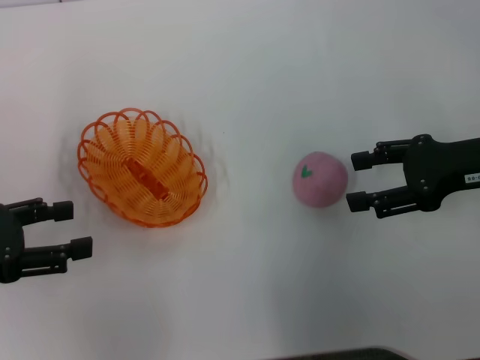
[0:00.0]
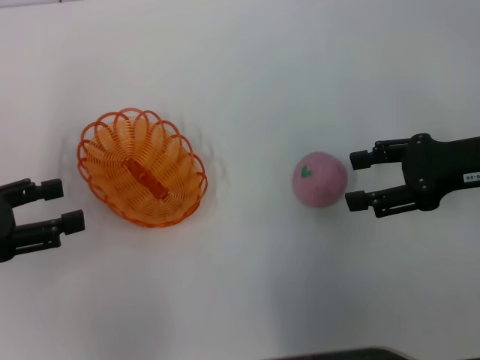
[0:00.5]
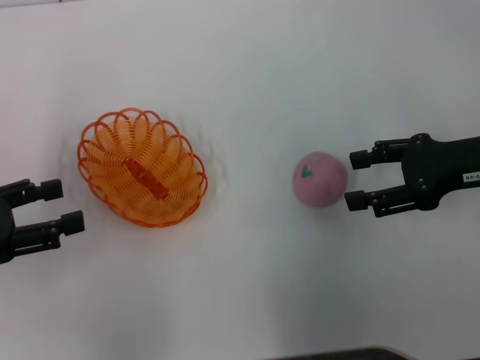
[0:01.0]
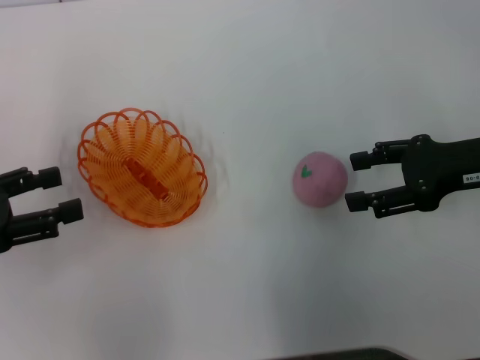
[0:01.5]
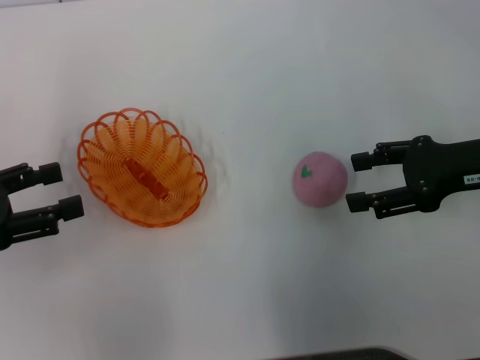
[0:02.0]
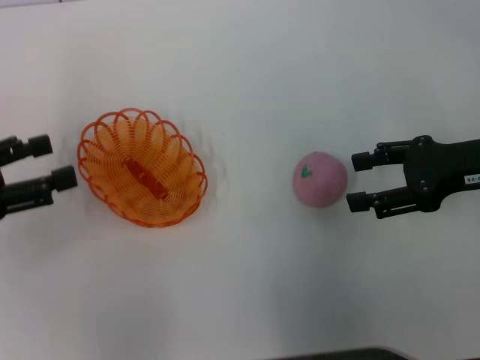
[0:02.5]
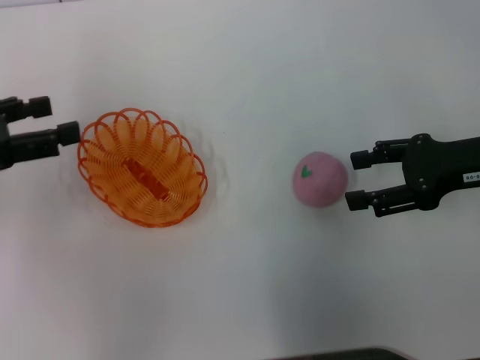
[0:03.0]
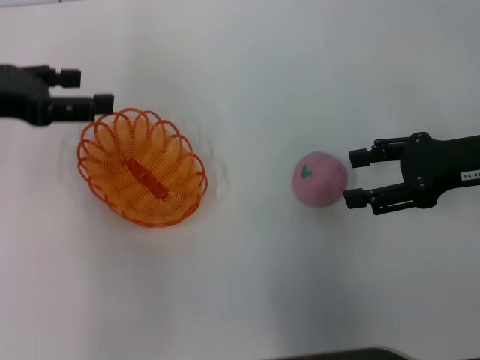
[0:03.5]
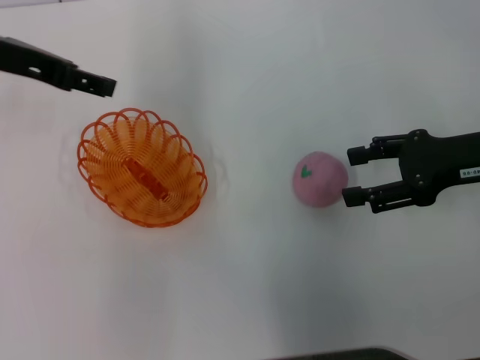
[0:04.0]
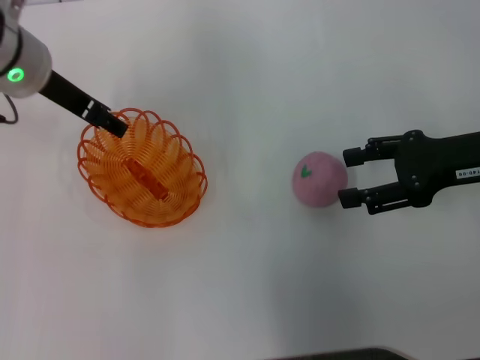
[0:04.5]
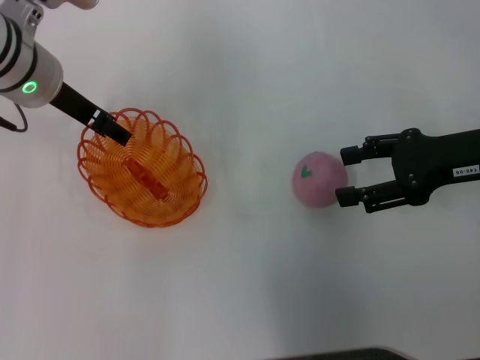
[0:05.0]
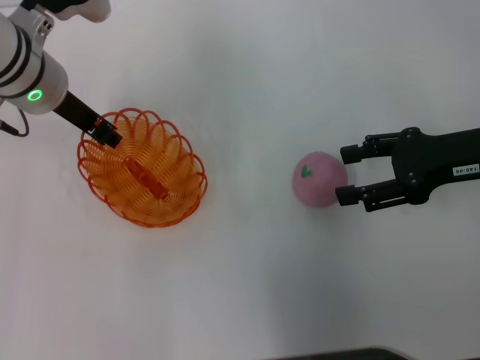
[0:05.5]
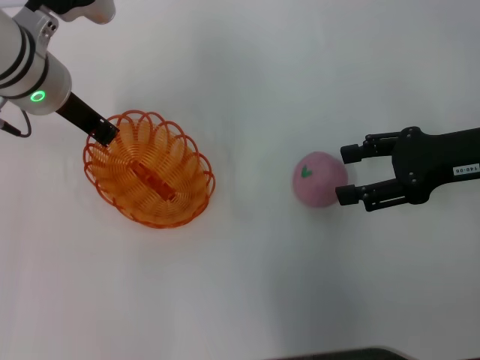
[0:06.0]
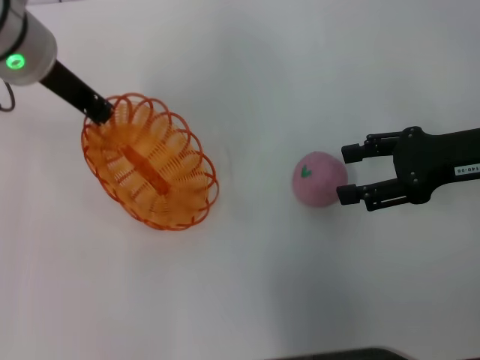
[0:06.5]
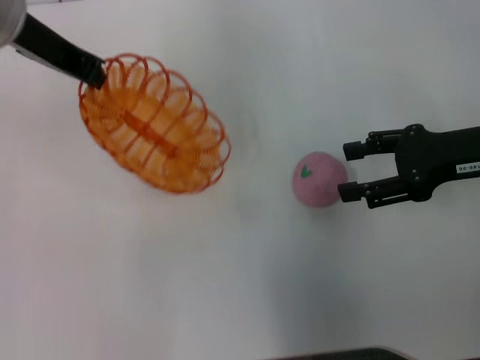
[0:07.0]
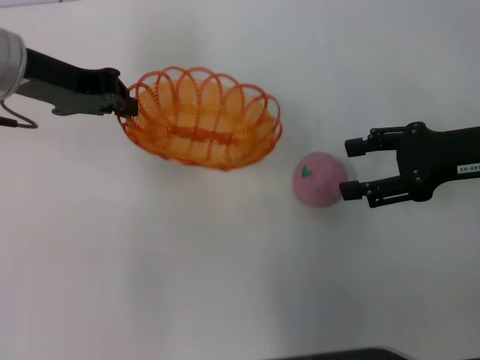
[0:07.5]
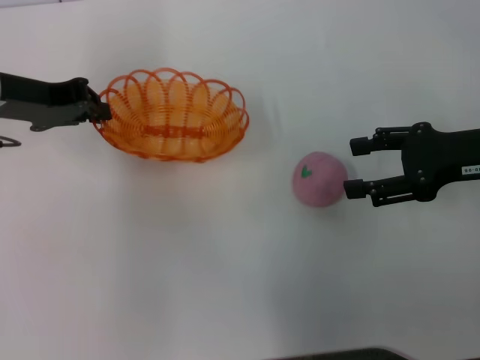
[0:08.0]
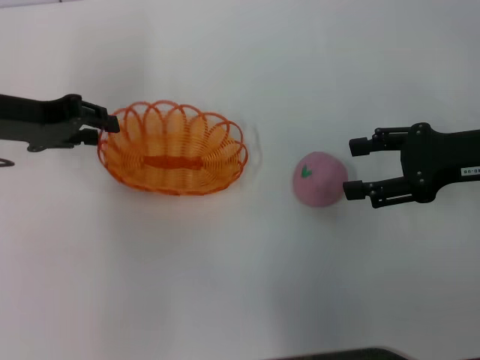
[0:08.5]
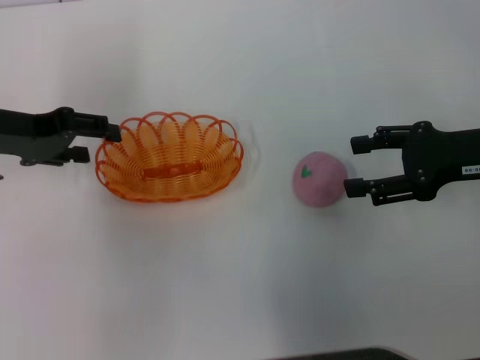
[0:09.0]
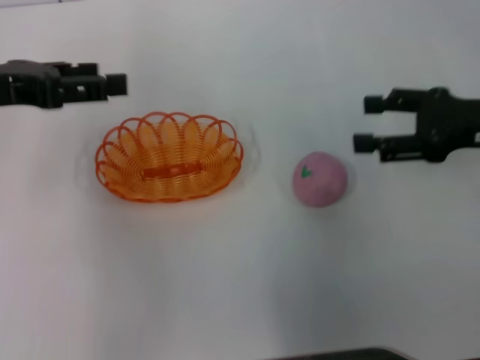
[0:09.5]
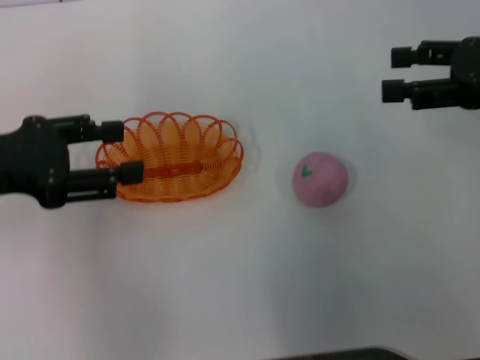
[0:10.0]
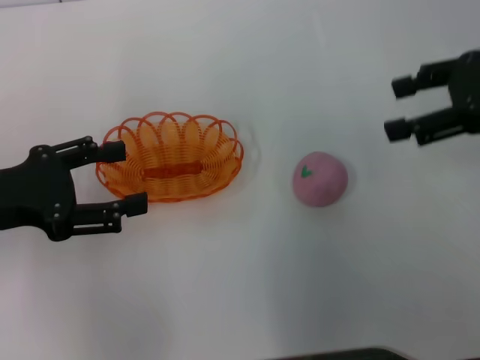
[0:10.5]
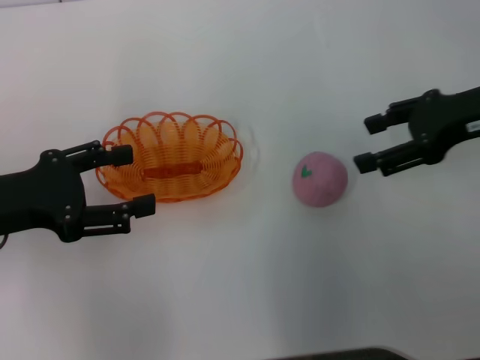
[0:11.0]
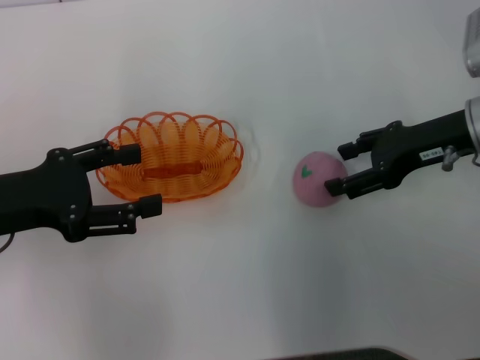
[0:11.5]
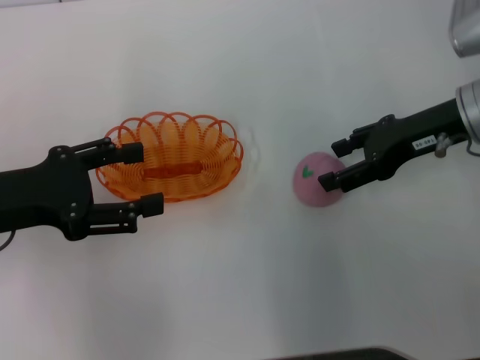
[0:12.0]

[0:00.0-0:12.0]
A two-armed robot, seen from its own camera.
Step, 0:00.0 to 0:06.5: Pick up the basket with the left gripper.
Step, 0:07.0 to 0:09.0: Place the basket in the center of view with the left gripper.
0:00.0 to 0:02.0: The grippers stay close to where they were, moving slightly.
0:02.0 to 0:04.0: The left gripper shifts roughly 20 cm forward, to the right and upward.
0:04.0 to 0:06.0: The left gripper is displaced downward and to the right by roughly 10 cm, and closes its fingers.
0:06.0 to 0:08.0: The left gripper goes about 10 cm to the left, and moves some 10 cm upward and comes back.
0:08.0 to 0:10.0: The left gripper goes some 10 cm backward, and opens. Meanwhile the right gripper goes some 5 cm upward.
0:10.0 to 0:12.0: The right gripper goes about 10 cm to the left and downward.

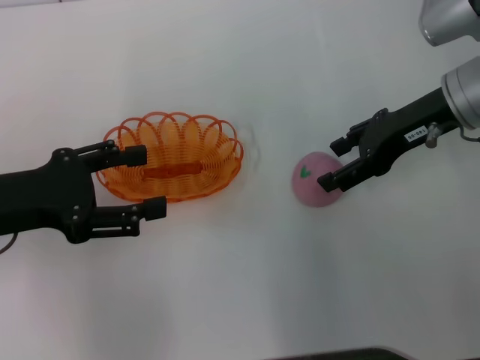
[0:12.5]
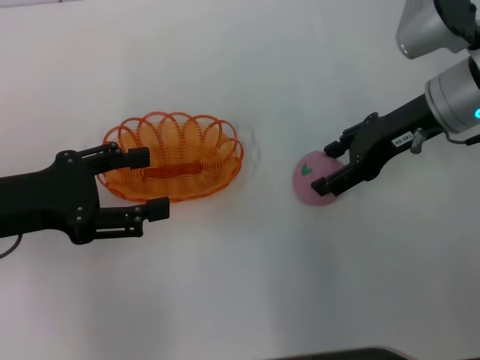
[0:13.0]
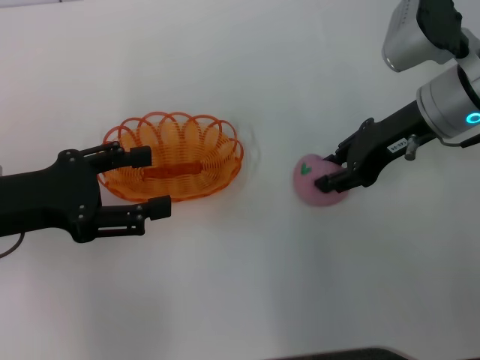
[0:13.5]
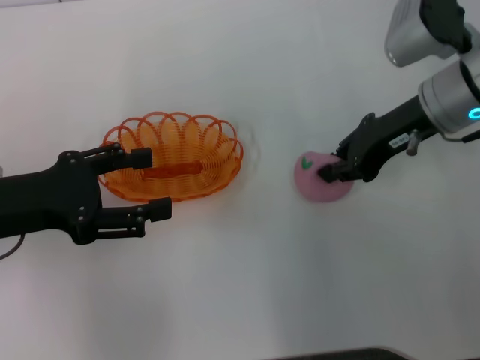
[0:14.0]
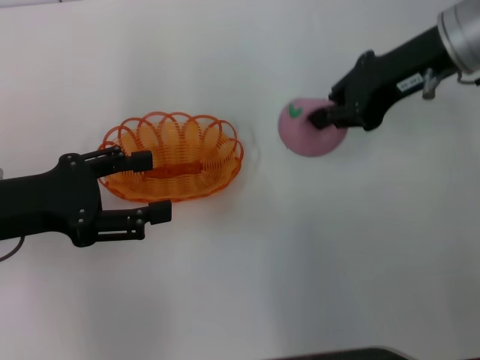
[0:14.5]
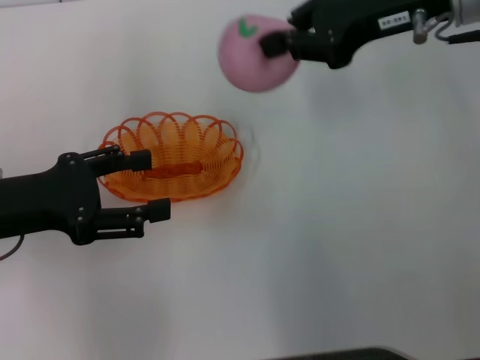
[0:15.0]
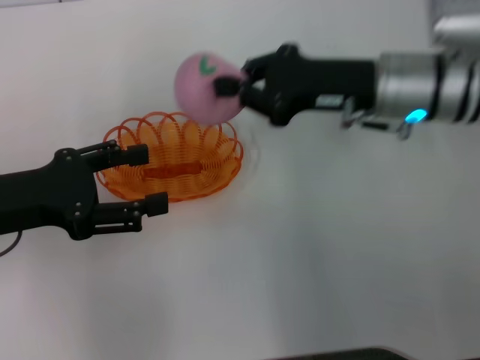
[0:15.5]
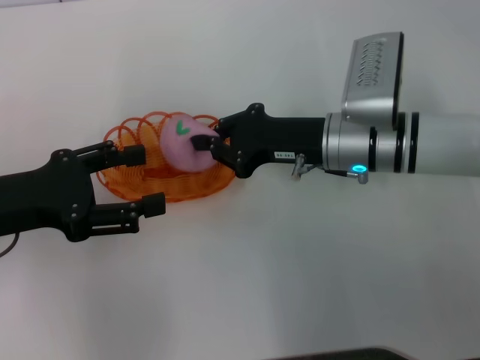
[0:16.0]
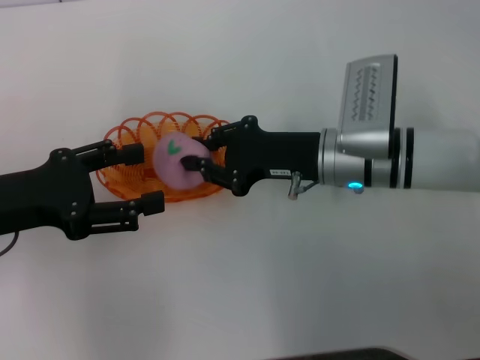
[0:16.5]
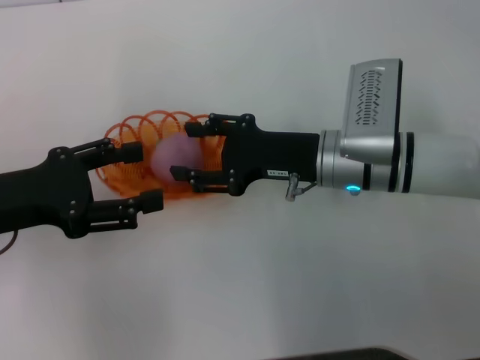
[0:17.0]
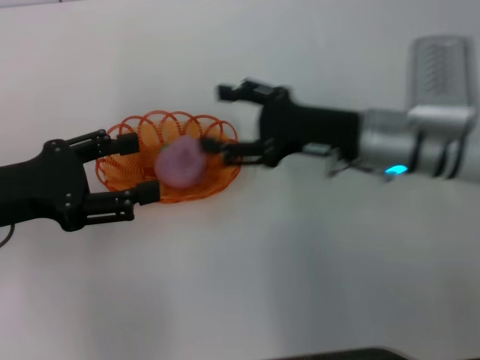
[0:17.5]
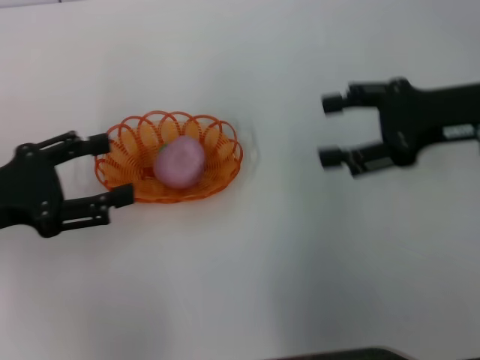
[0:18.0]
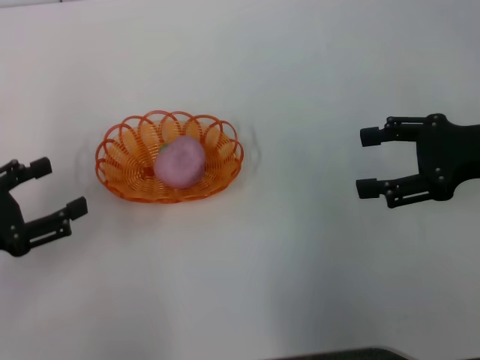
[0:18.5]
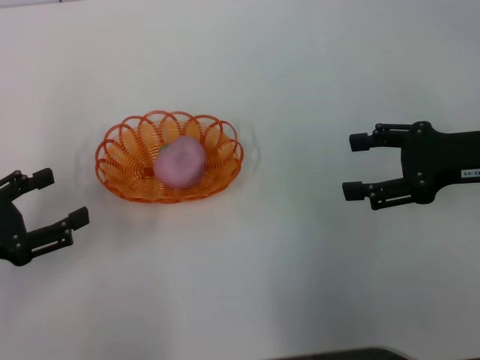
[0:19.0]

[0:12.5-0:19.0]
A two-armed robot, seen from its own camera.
Step, 0:12.5 to 0:14.5: Pick up the peach with the right gripper.
Step, 0:15.0 to 0:17.5: Place the peach into the basket with the right gripper.
0:12.5 to 0:14.5: The right gripper travels upward by about 5 cm, and closes.
0:14.5 to 0:17.0: The right gripper heads downward and to the left, covering about 15 cm, and opens.
0:17.0 to 0:19.0: The left gripper is displaced to the left by approximately 5 cm. The right gripper travels to the right by some 15 cm, and opens its fingers.

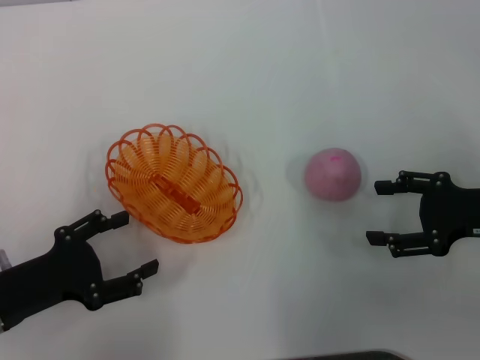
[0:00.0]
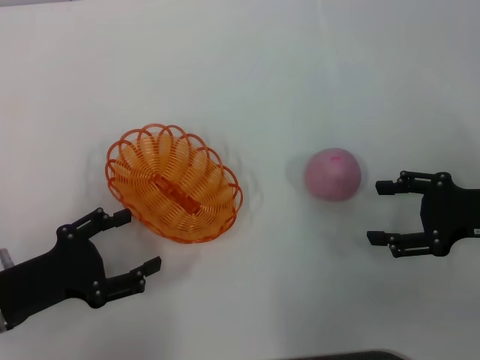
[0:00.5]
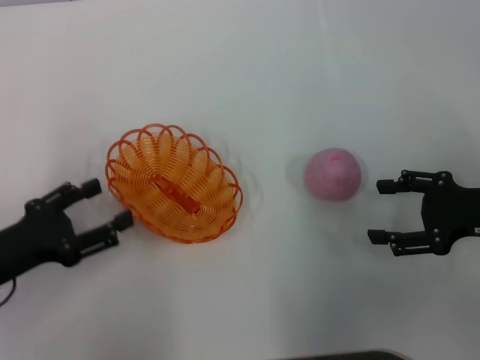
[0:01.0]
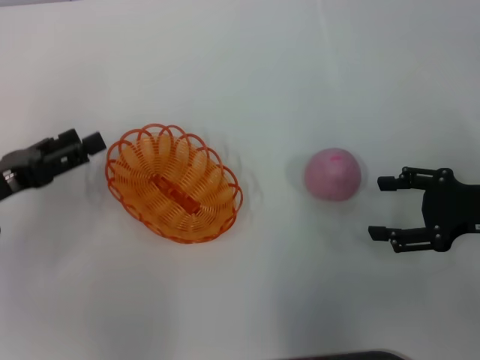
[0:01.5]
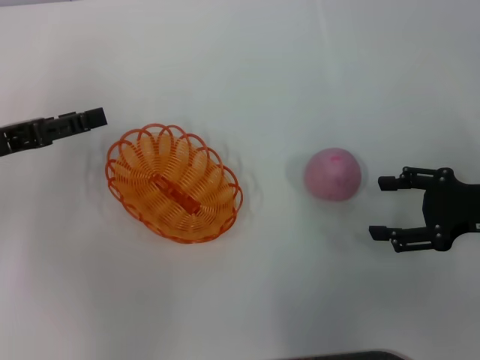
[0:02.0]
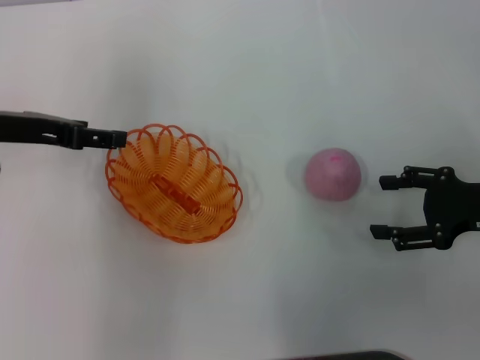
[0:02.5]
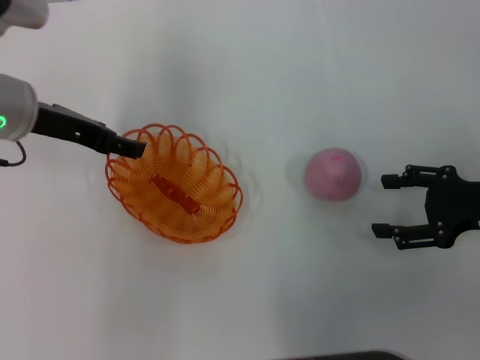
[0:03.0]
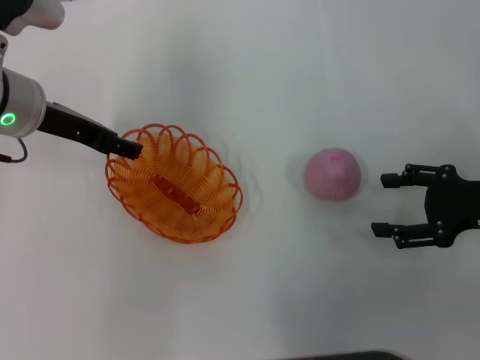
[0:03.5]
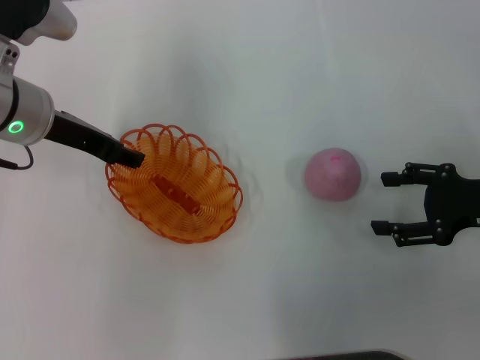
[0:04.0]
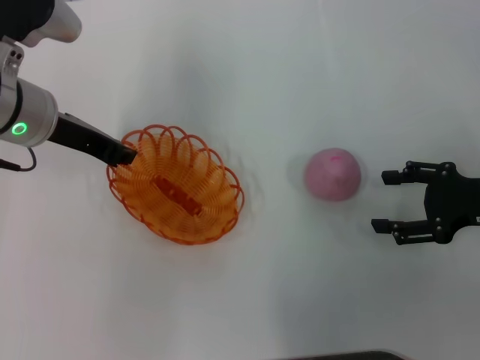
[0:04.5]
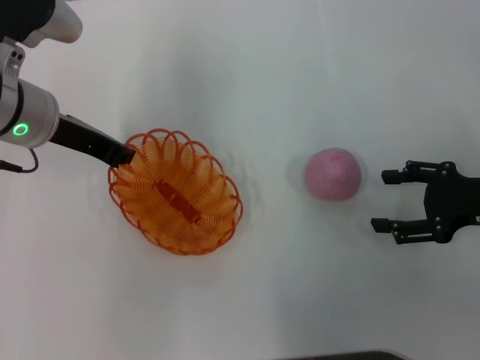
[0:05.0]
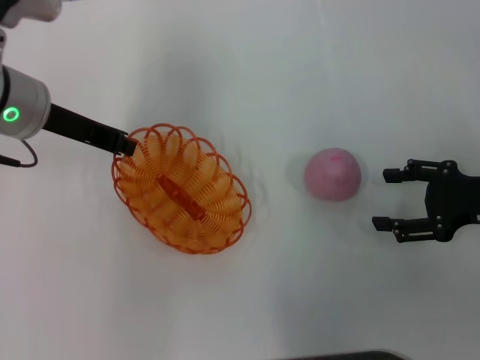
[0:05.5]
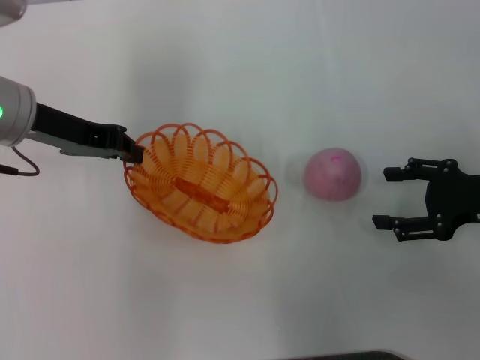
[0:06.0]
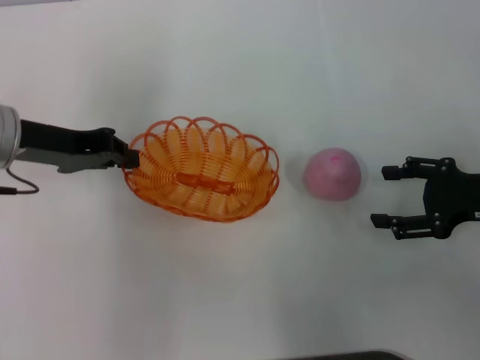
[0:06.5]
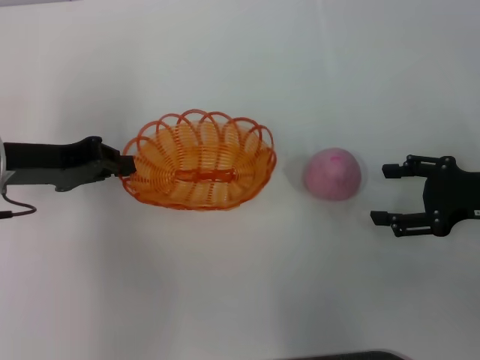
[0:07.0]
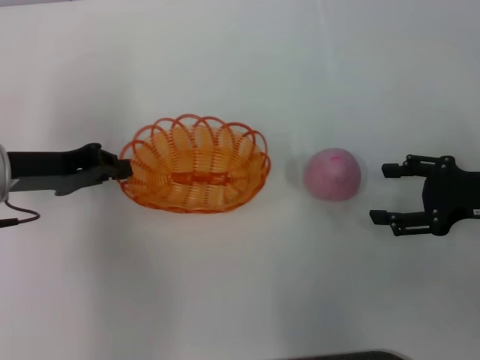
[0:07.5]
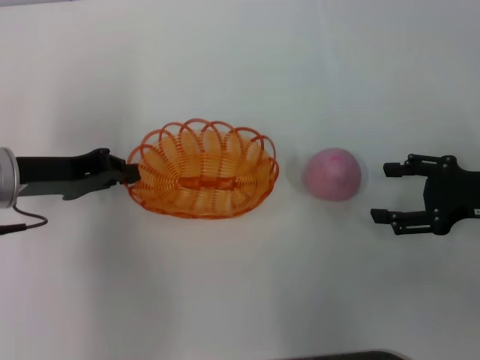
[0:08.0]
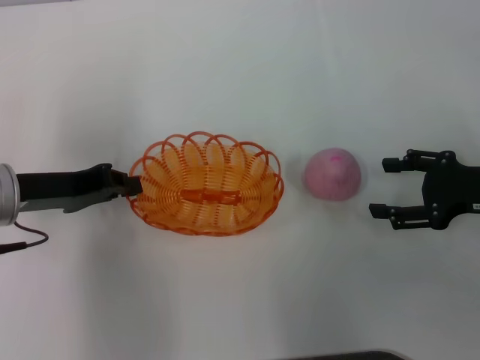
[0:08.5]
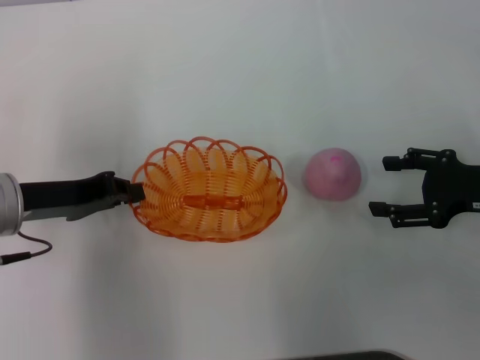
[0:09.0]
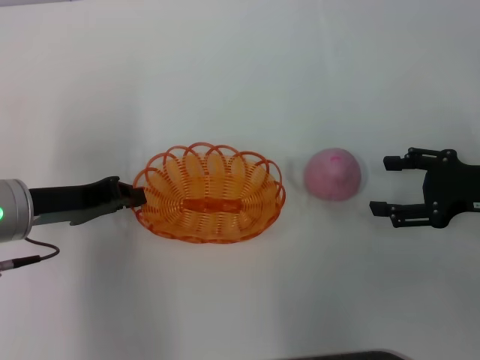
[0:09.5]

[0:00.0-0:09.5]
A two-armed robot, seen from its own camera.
Step, 0:00.0 to 0:05.5: Pick up the basket with the left gripper.
0:00.0 to 0:02.0: The left gripper is displaced forward and upward by some 15 cm.
0:02.0 to 0:04.0: The left gripper travels to the right and forward by about 10 cm.
0:04.0 to 0:05.5: The left gripper closes its fingers.
0:05.5 to 0:07.5: The left gripper travels to the left, downward and backward by some 10 cm.
0:07.5 to 0:09.5: There are only small adjustments of the grippers.
